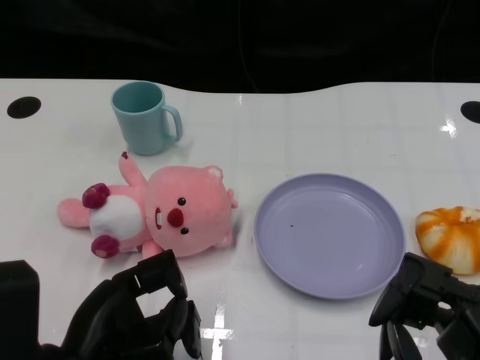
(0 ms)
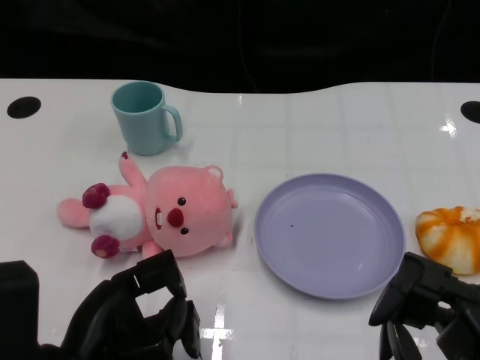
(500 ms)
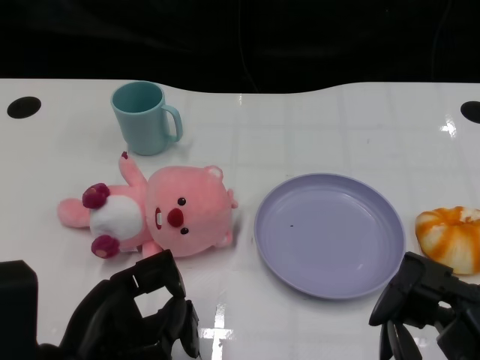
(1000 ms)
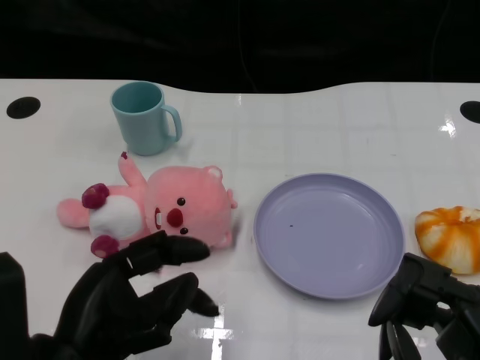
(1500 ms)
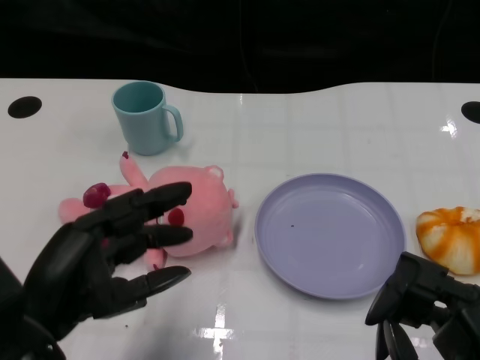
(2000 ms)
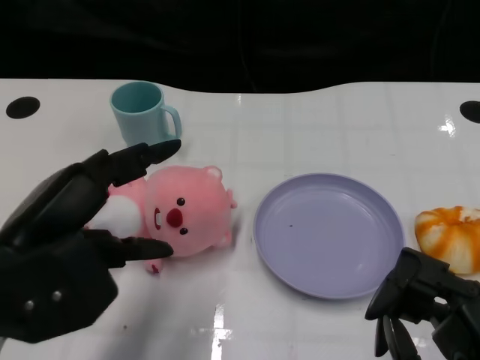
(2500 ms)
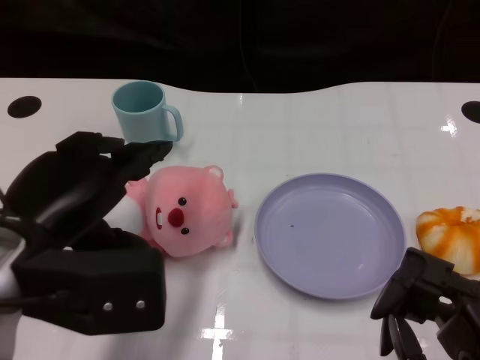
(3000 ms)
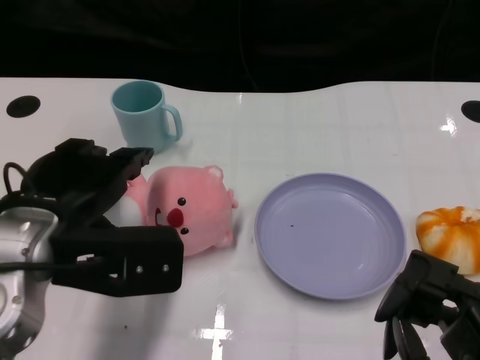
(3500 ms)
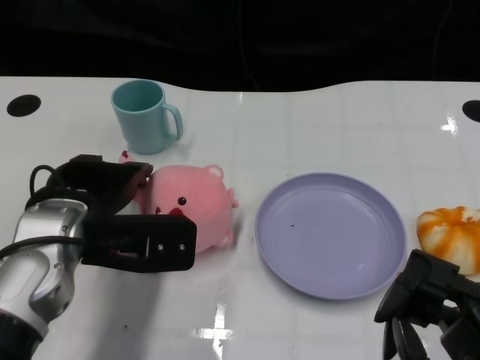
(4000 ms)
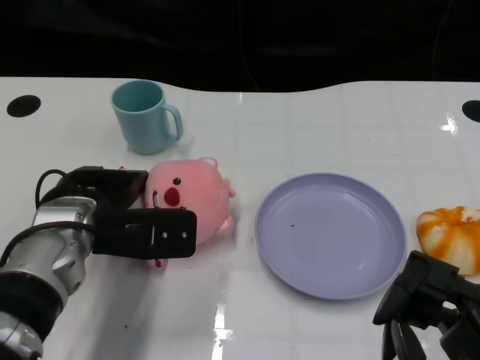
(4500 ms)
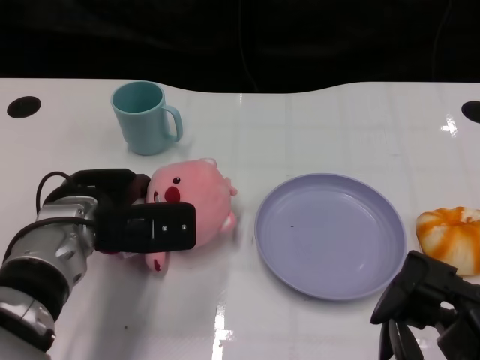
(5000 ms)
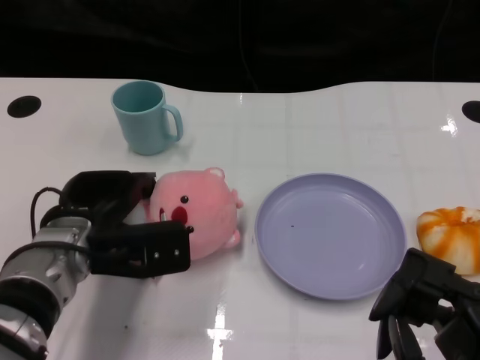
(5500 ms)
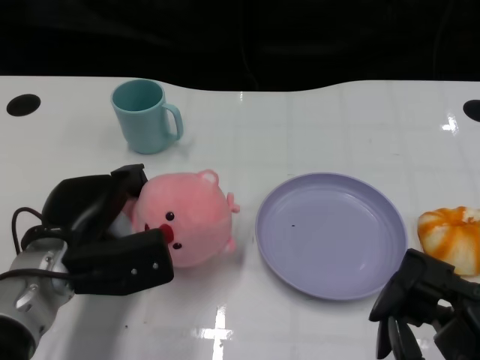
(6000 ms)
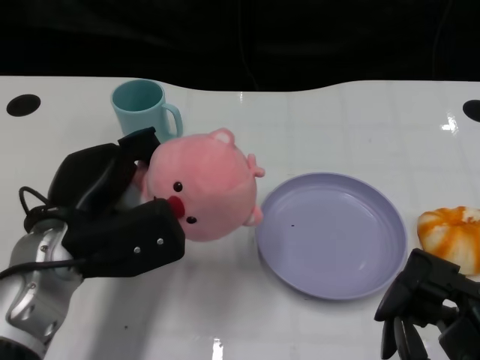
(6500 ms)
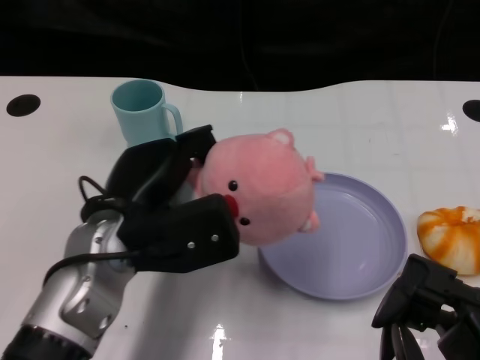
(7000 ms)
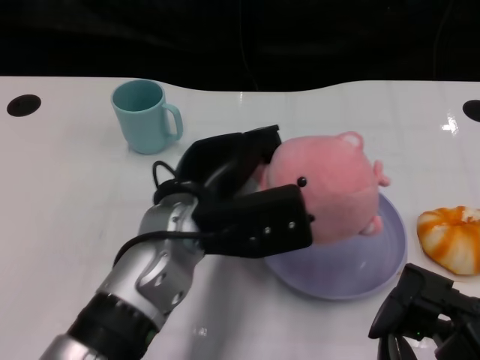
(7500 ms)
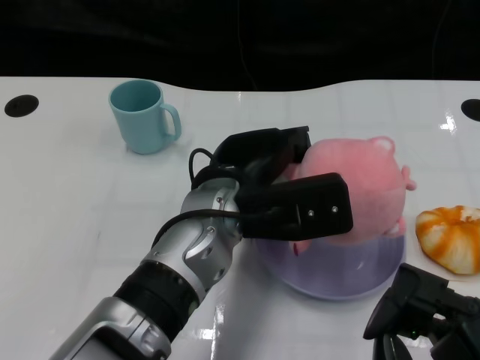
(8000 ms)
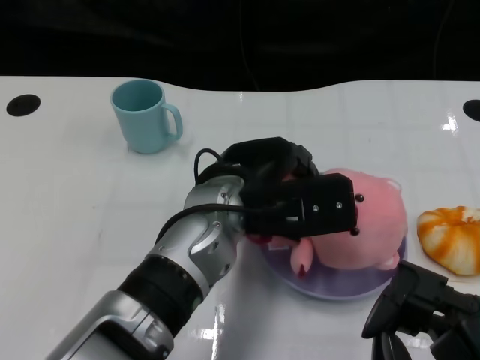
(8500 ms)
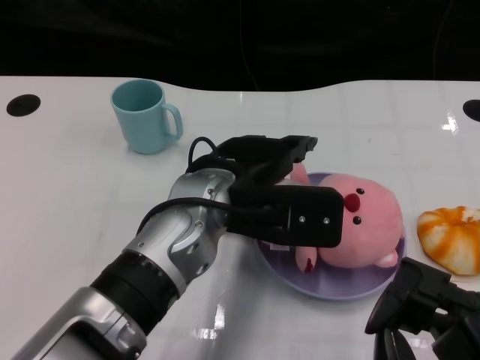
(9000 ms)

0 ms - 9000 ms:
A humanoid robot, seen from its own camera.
Task of the whole recording: Pick up the doll on one side of the plate and place it into the plate.
Step, 1500 ms - 6000 ms: Grasp the pink doll with the left gripper.
2000 ms - 4500 ms: The left hand shifts about 15 cm forward.
4500 ms - 7000 ms: The left hand moves approximately 5 cm.
7000 ms - 9000 ms: The left hand goes some 10 cm to the right.

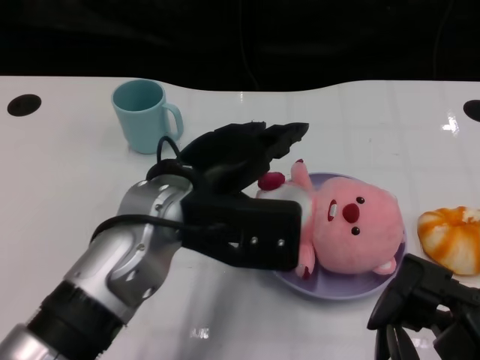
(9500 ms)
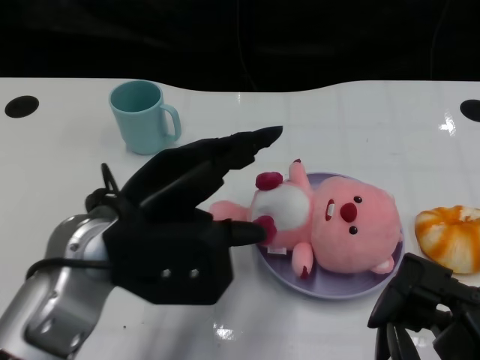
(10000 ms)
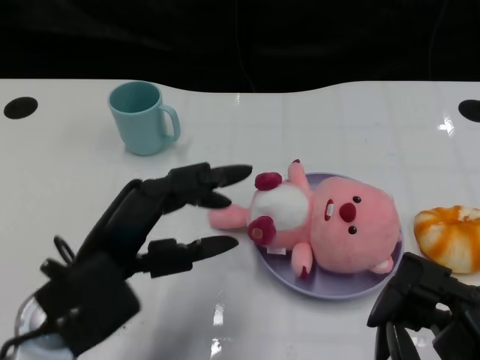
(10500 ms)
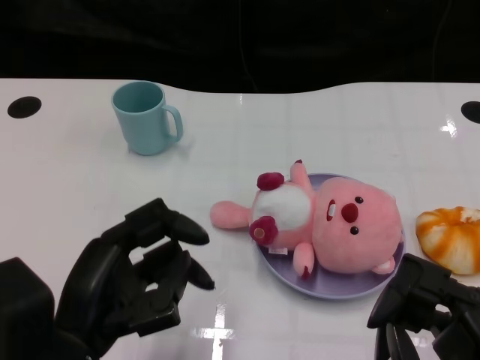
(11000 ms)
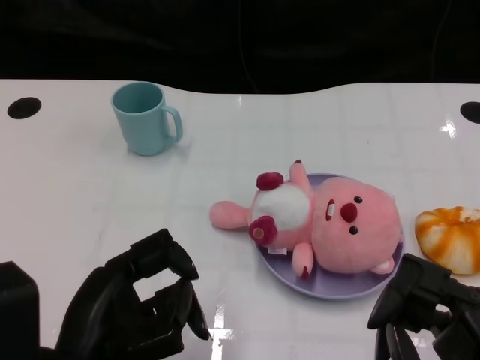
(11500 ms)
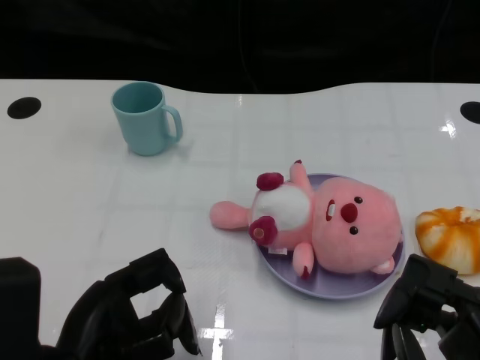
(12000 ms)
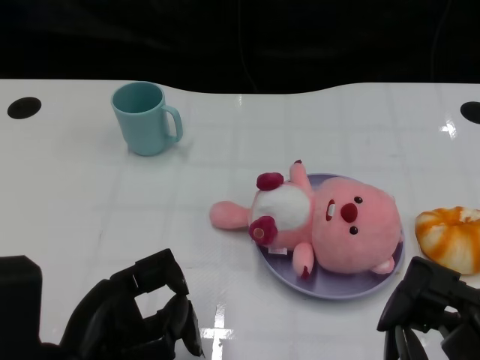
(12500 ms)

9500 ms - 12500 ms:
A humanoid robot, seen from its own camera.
Task of the whole recording: Pick up the doll on one side of the plate and place it into the plate.
9500 ms - 11000 ms: The left hand moves backward, to the left and downward, approximately 15 cm.

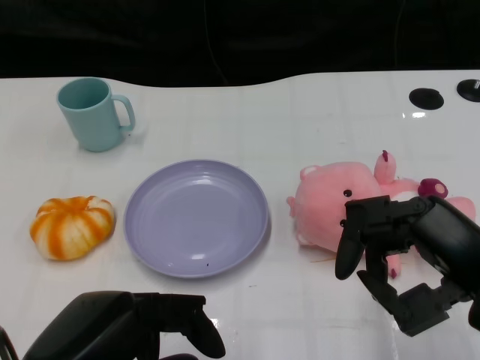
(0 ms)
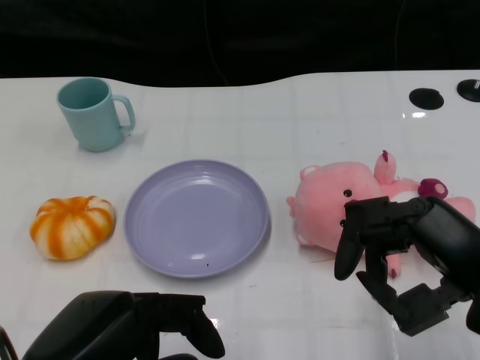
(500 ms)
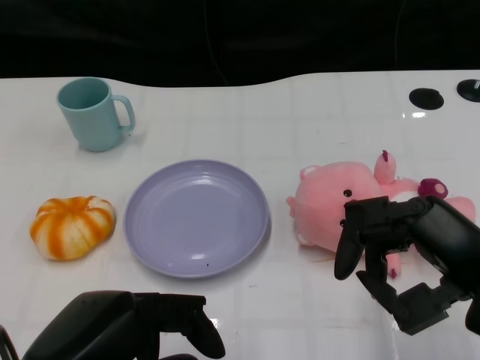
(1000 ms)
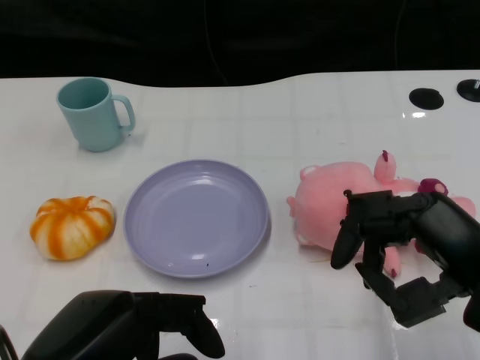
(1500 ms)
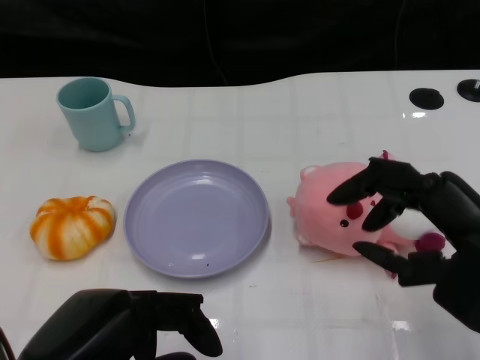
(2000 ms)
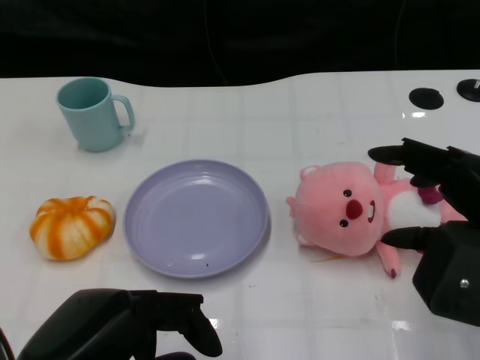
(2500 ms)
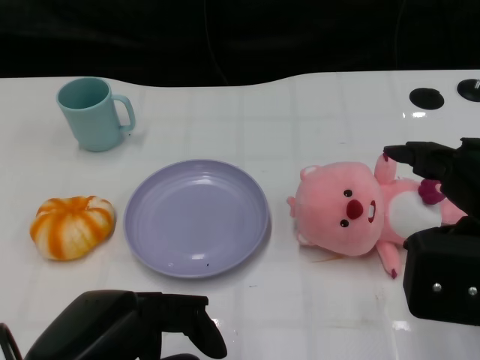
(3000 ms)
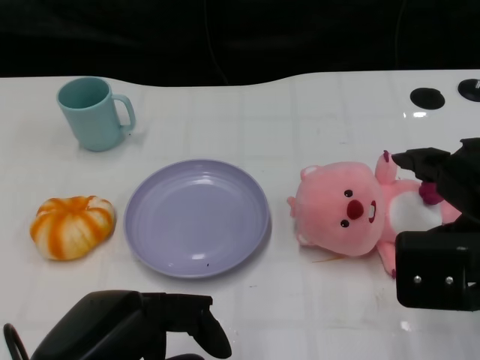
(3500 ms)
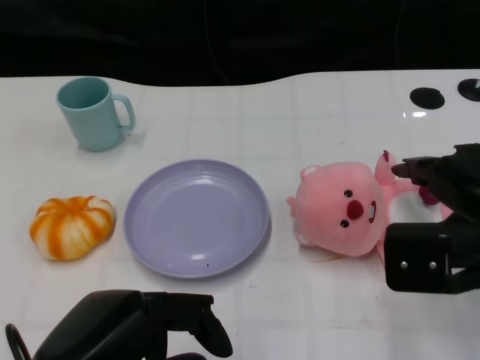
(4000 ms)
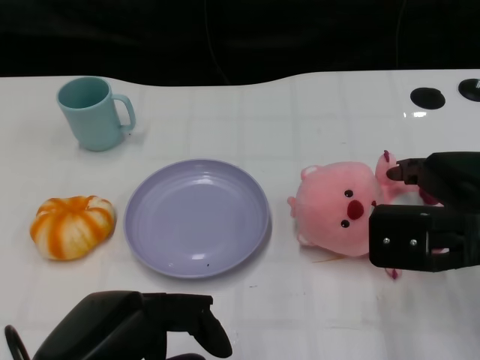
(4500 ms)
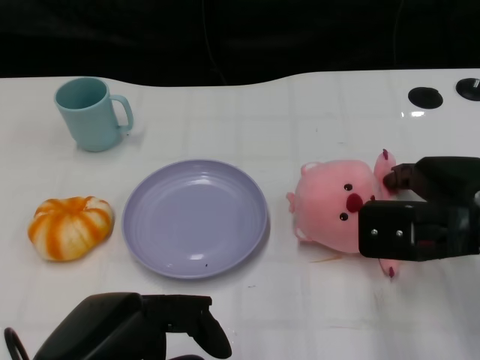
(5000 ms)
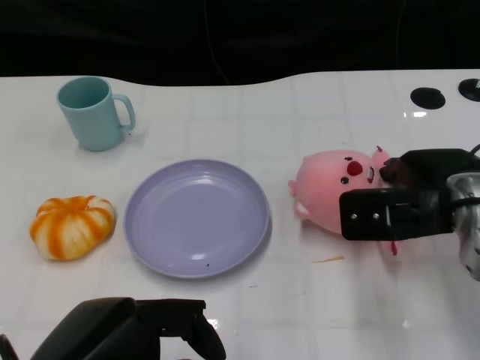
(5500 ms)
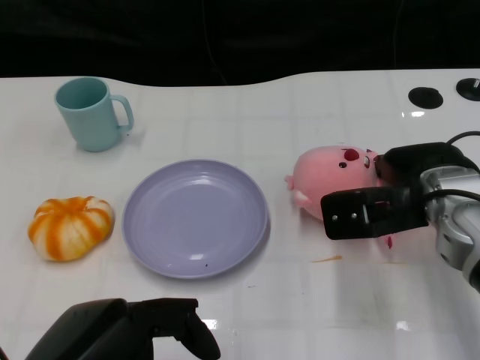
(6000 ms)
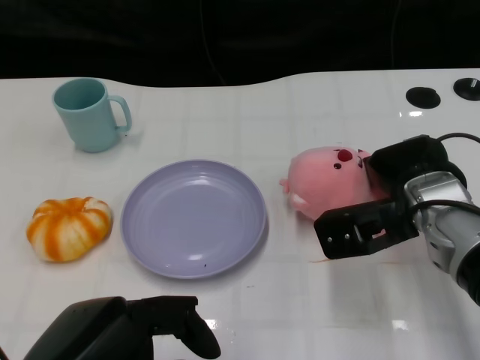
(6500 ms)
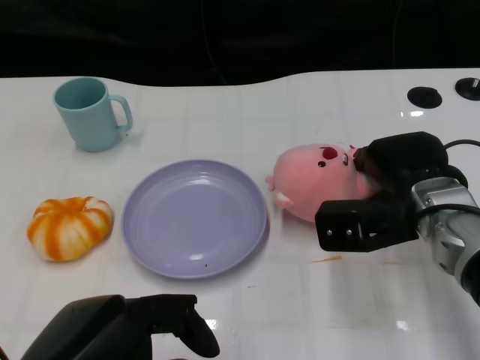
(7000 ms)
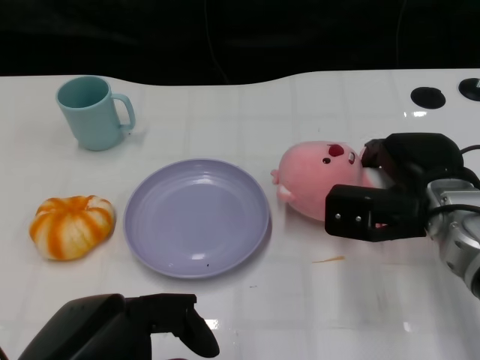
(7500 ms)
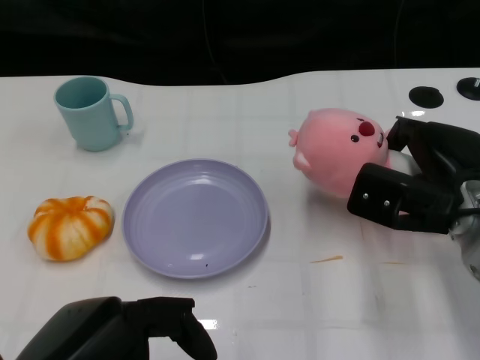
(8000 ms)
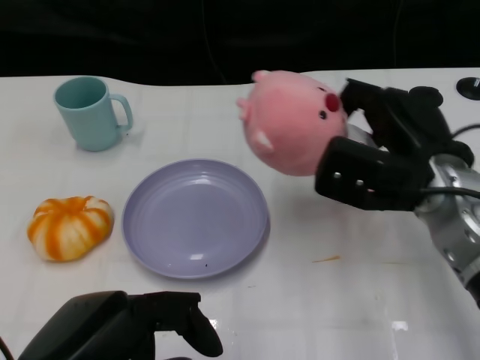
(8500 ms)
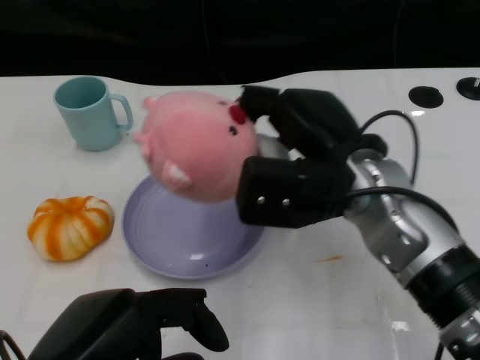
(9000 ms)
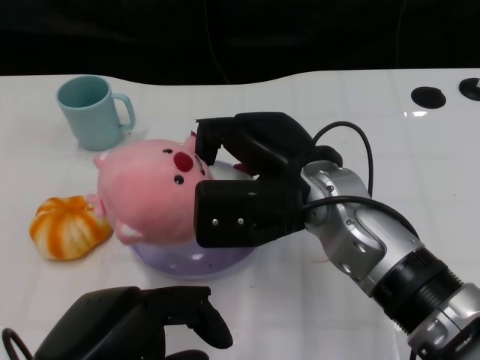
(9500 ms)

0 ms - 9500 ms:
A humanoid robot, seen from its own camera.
Task of the whole recording: Pick up the doll on the other side of the plate and place it into the plate.
Step, 1500 ms - 8000 ms: Grasp the pink doll with the right gripper.
2000 ms - 4000 ms: The right hand heads forward, covering approximately 5 cm.
4000 ms - 5500 ms: The right hand moves forward, approximately 5 cm.
7500 ms - 9500 ms: The right hand is displaced to the left and upward by some 15 cm.

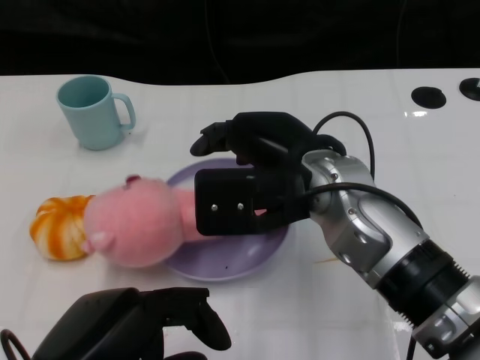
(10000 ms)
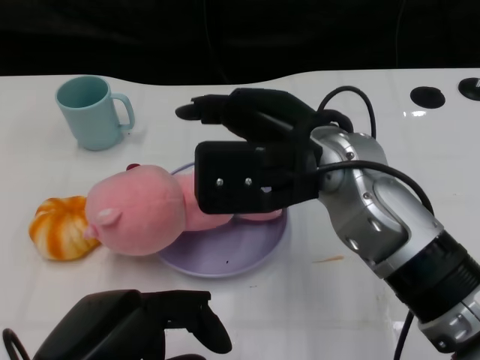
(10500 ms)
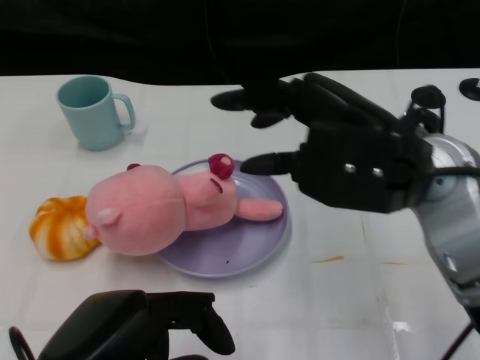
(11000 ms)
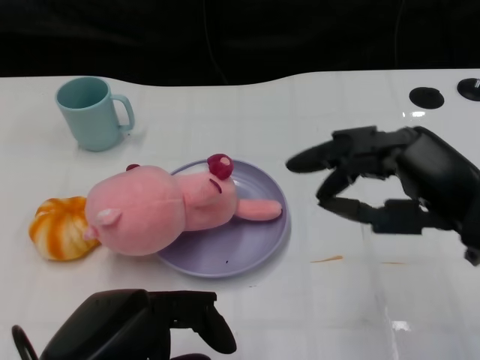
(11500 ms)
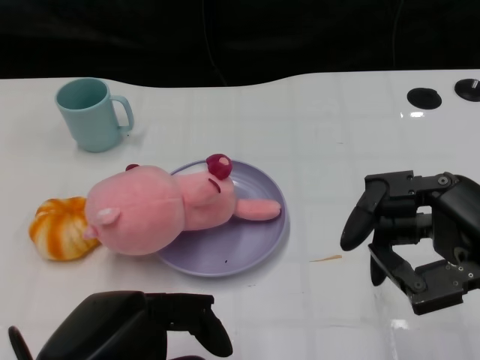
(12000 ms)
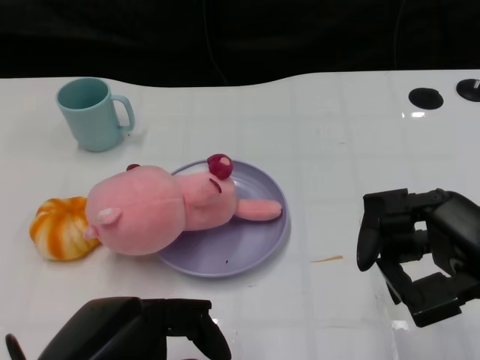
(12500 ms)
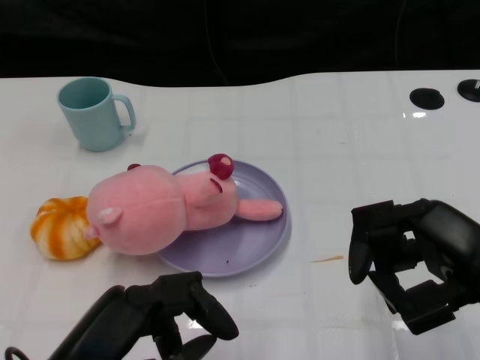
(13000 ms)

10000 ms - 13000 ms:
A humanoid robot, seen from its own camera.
Task of the whole recording: Pick up the doll on the other side of the plate and place it into the plate.
10000 ms - 11500 ms: The right hand shifts roughly 15 cm to the right and backward.
